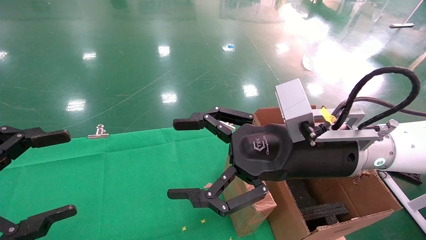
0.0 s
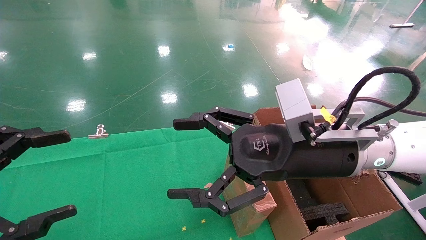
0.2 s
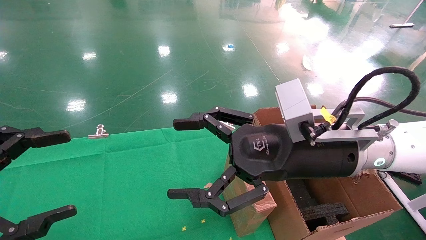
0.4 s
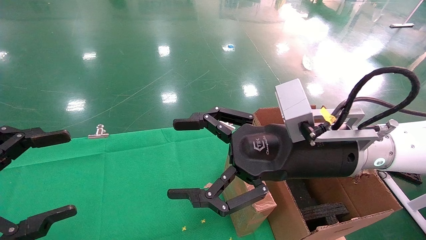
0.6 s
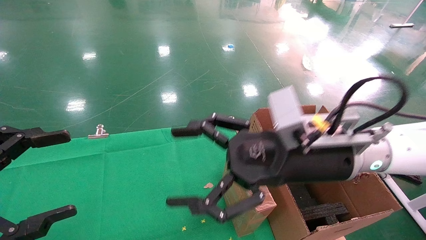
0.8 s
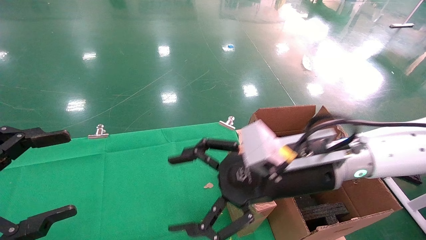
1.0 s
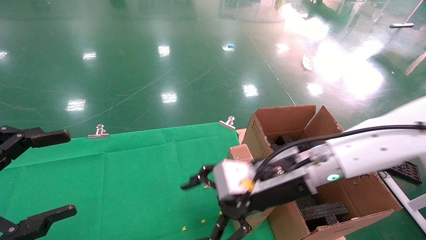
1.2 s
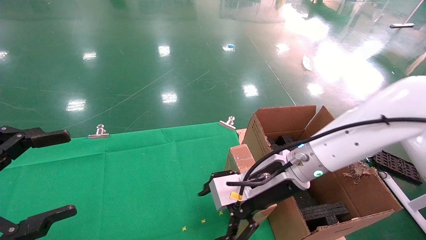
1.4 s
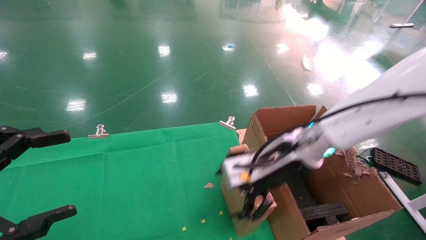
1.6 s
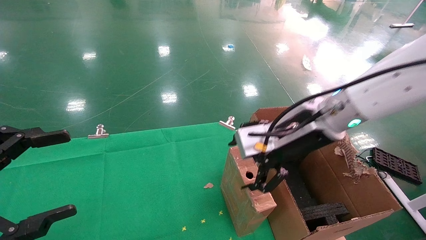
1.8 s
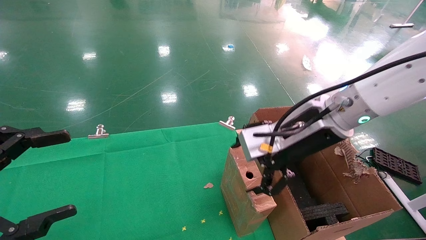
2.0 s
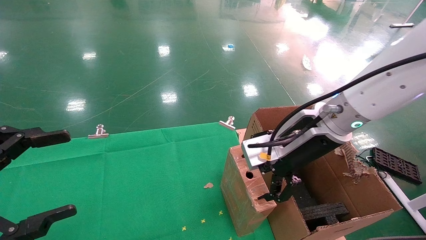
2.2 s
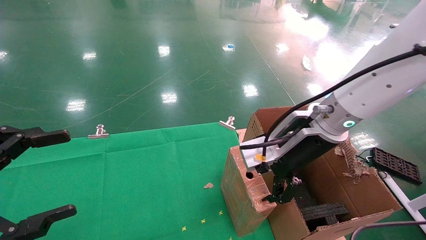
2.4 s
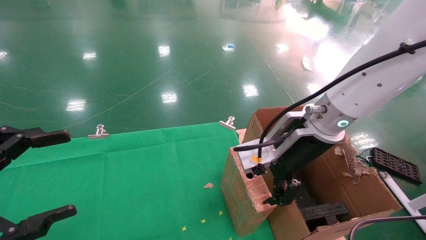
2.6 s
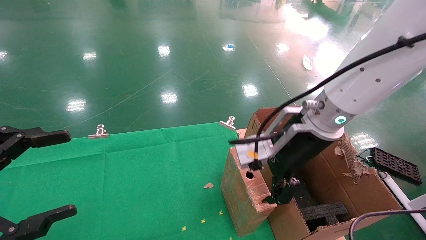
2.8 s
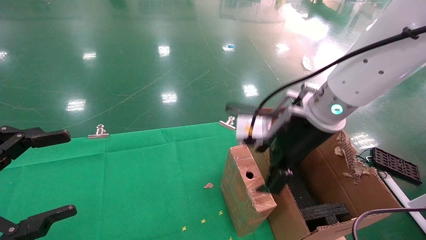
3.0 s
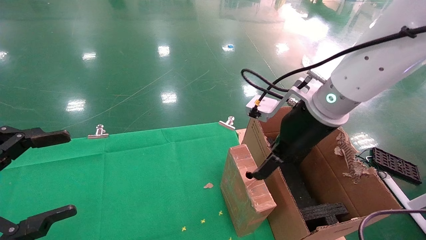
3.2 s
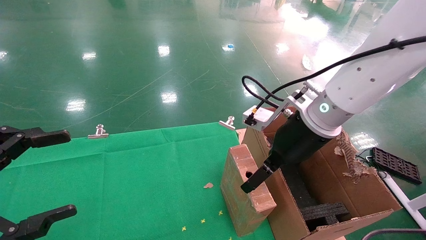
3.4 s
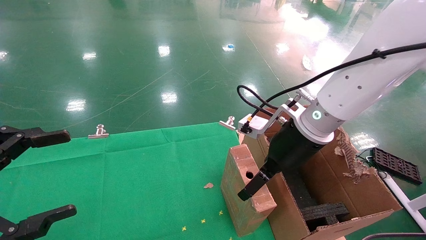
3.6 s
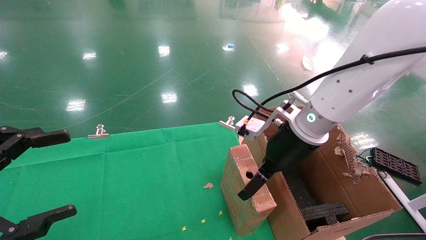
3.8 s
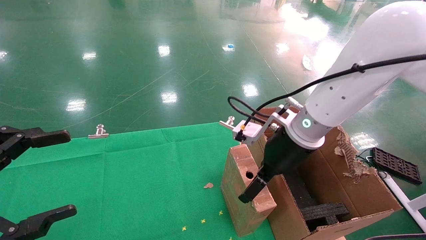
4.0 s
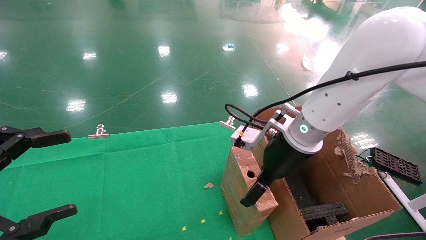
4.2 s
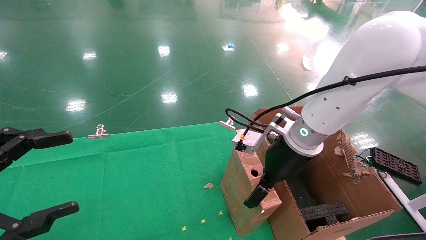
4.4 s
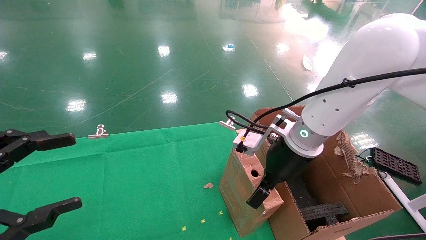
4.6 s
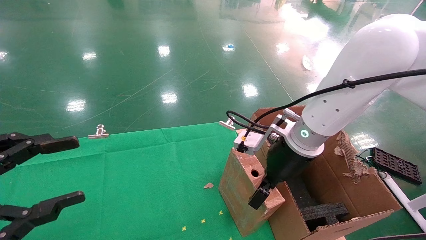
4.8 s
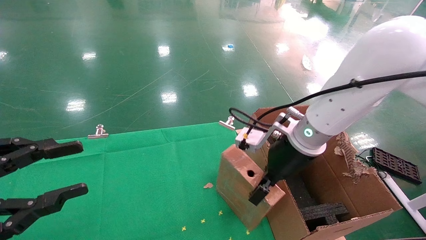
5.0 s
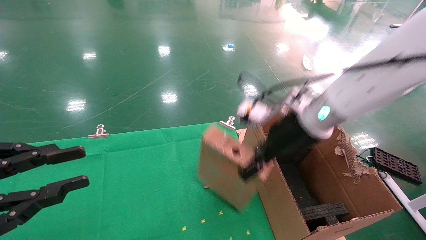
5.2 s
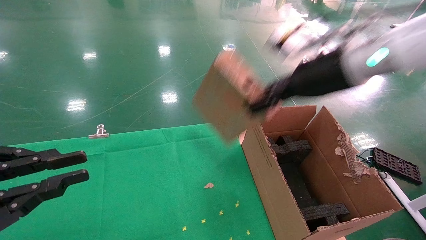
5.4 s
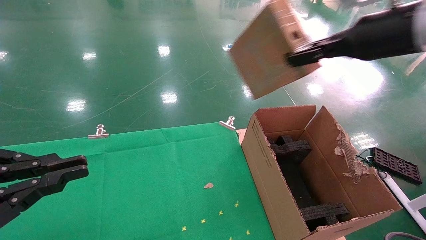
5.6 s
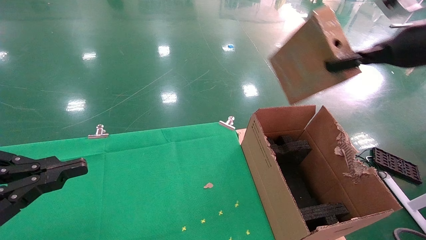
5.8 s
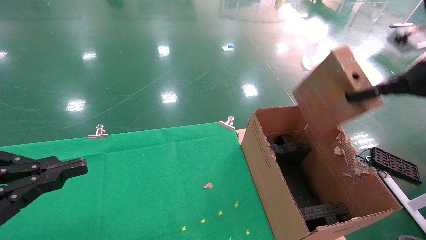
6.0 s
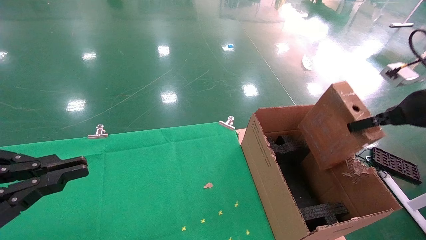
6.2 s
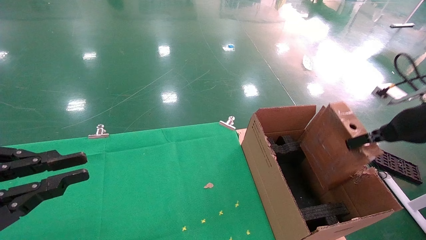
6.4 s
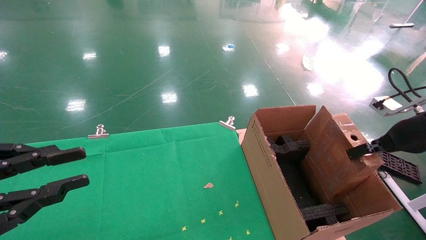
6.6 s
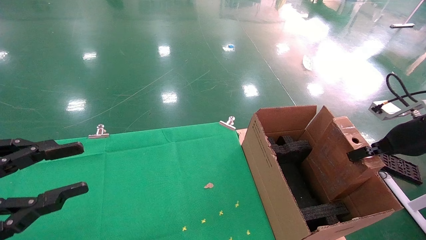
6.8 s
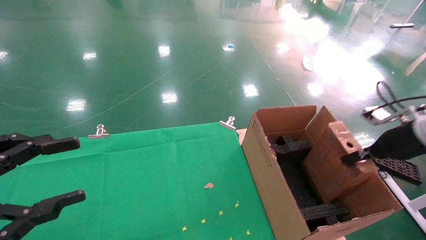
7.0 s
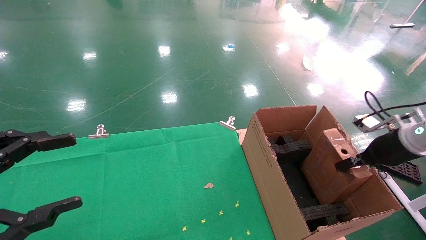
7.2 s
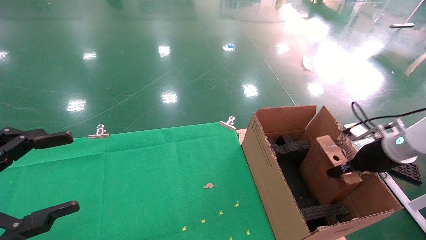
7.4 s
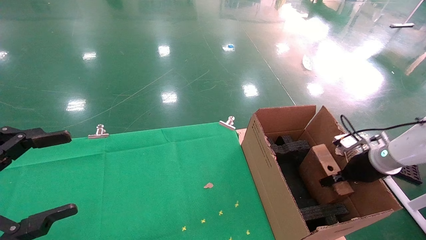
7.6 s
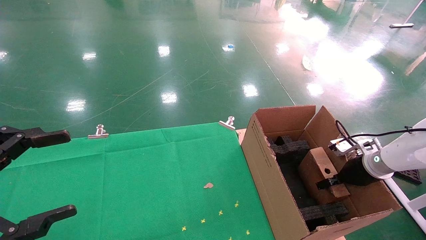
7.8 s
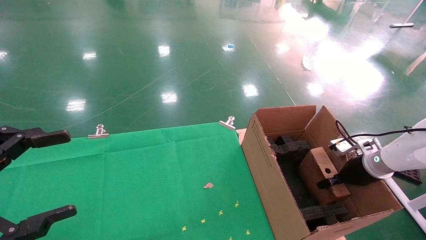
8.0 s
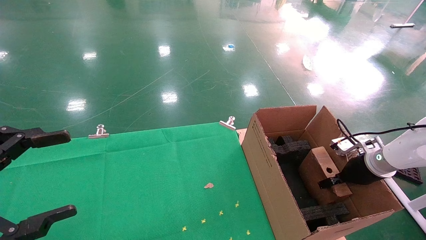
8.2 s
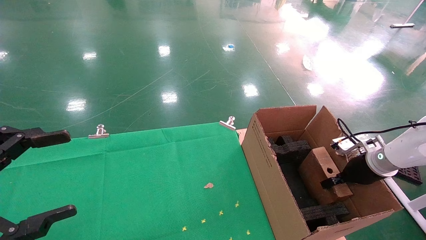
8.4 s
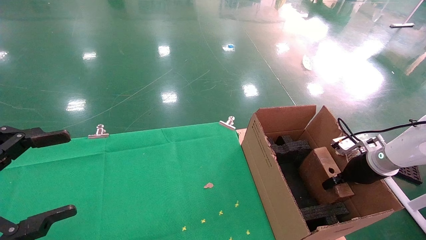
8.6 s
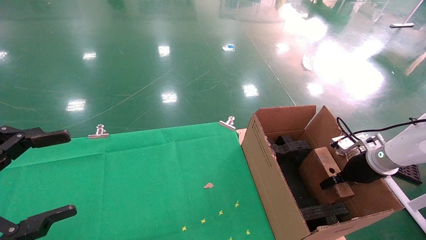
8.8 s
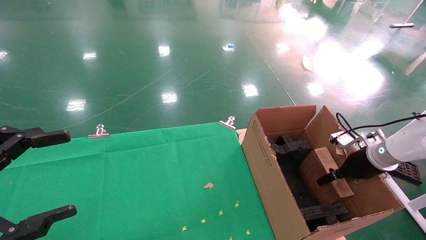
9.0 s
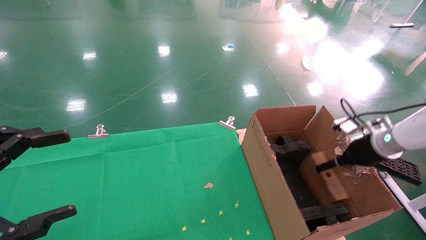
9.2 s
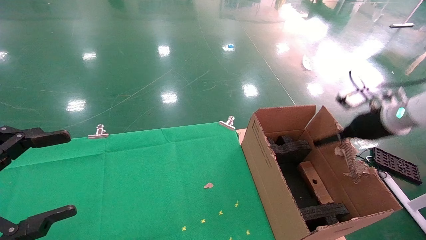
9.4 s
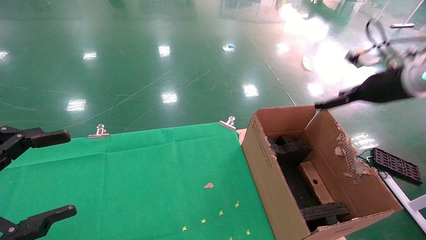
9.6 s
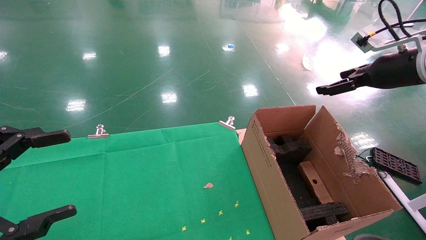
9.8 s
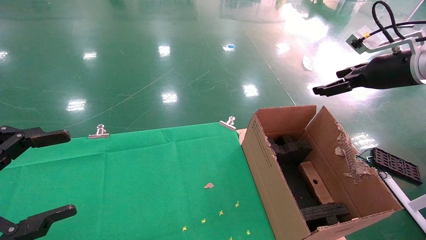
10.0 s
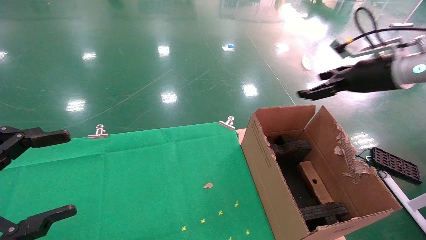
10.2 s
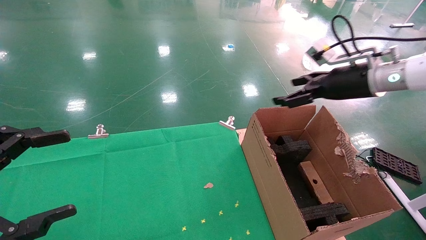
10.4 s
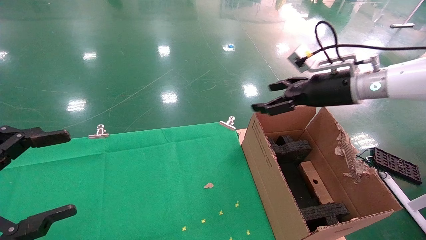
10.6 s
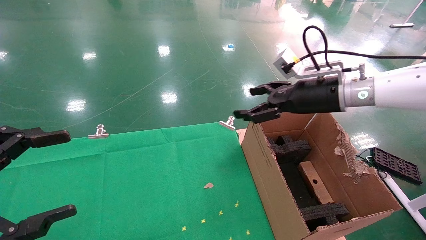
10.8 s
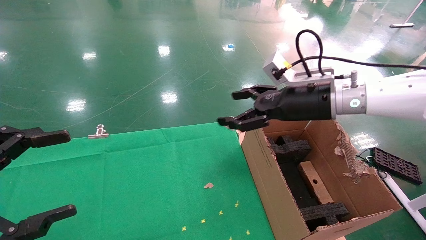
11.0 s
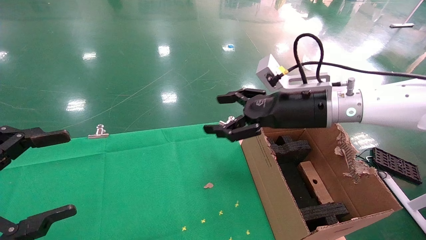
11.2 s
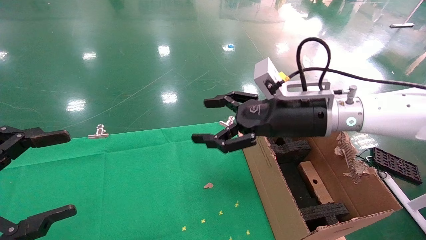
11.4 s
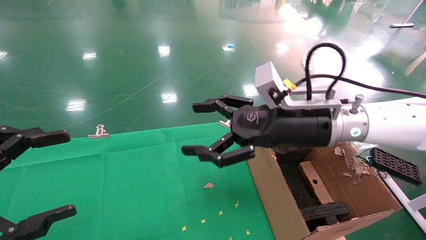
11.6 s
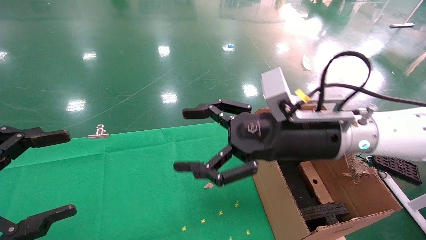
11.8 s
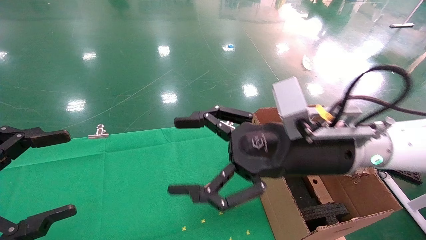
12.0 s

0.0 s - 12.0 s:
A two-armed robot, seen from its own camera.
Task of the whole recording: using a robotic arm to pick up a cardboard box and palace it the carton.
Step, 1.0 s - 5.4 s: Pick up the mouse and the power cord paper box.
Step, 5.6 s - 9.4 s: Place the mouse and the power cord paper box into the container.
0.0 s - 1.6 s: The right gripper shifts roughly 5 cm forward.
1.6 s - 3.0 s: The right gripper goes roughly 5 cm upward.
3.0 s - 4.4 s: The right gripper heads downward, covering roughly 5 cm.
4.4 s - 6.0 s: The right gripper goes approximately 25 cm to the right and upward, and closes up. Meanwhile the left gripper closes.
6.0 s - 7.6 s: The right gripper goes roughly 25 cm downward, while the left gripper opens up.
7.6 s - 9.0 s: The right gripper opens up.
9.0 s - 10.4 s: The right gripper goes roughly 20 cm upward and to the left, and opens up.
10.4 s - 12.0 s: The right gripper travels to the left and backward by roughly 20 cm.

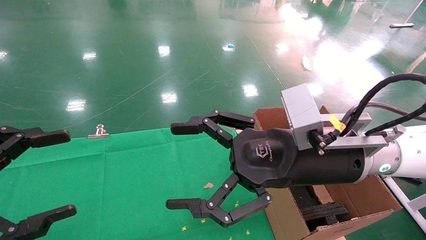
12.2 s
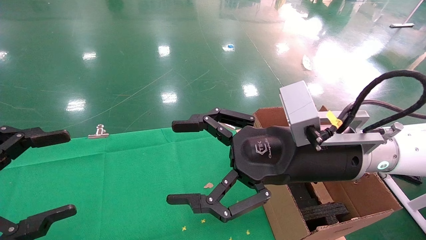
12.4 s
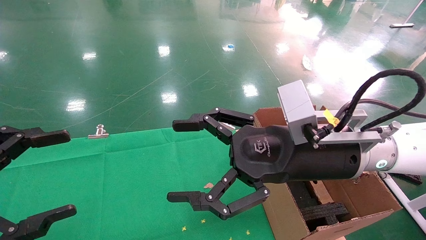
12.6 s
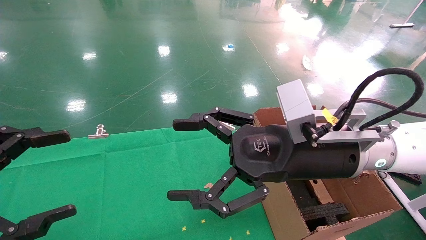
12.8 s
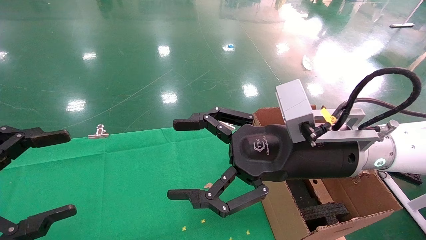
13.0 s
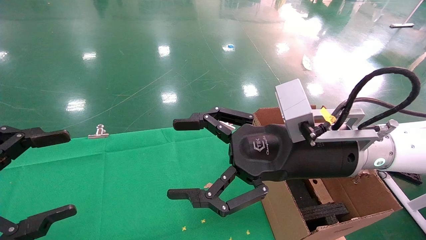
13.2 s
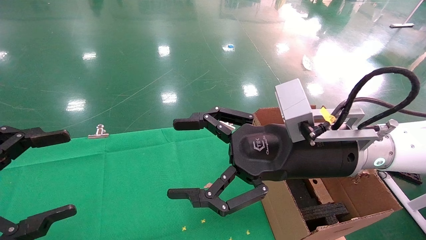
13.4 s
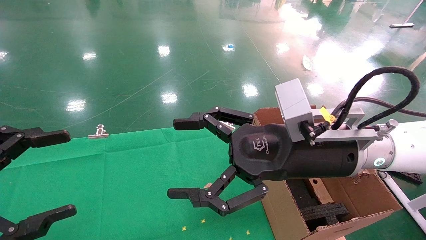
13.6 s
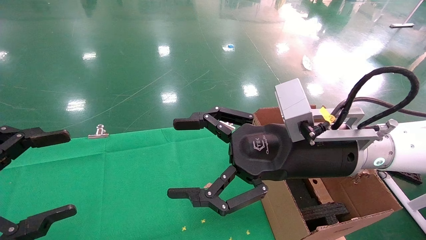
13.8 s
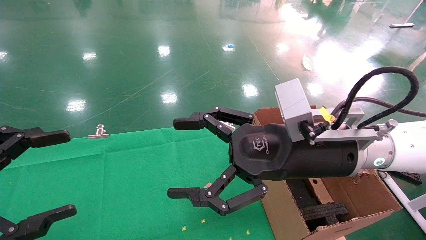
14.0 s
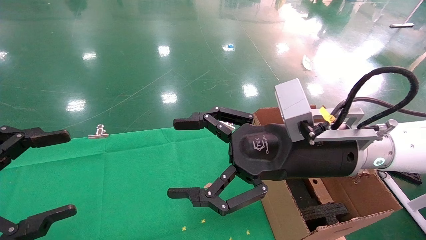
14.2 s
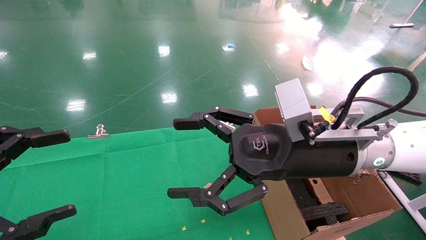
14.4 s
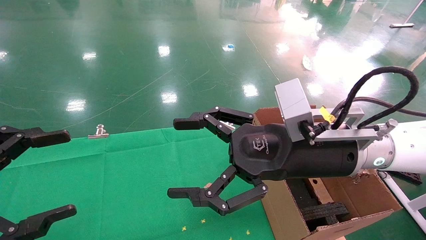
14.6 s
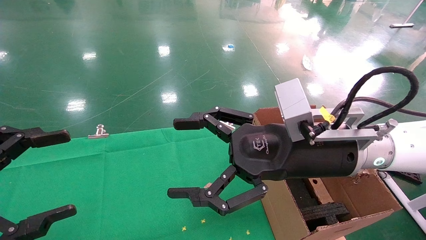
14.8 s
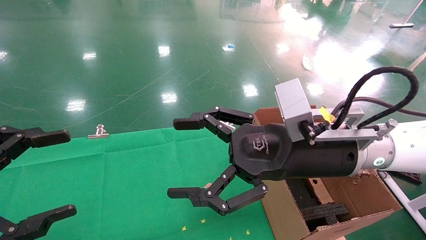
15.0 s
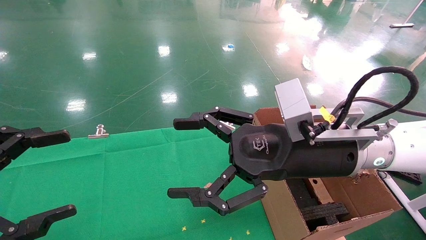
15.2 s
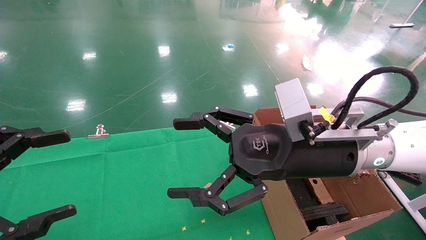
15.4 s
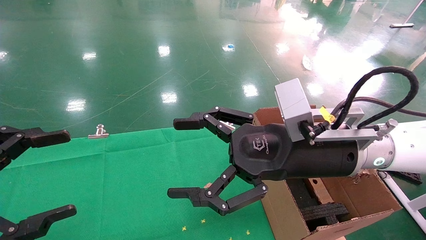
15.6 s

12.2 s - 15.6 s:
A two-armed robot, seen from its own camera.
Task of the whole recording: using a robotic arm to pick up a cardboard box and palace it the carton.
12.2 s - 15.6 s: The two grippers keep their place.

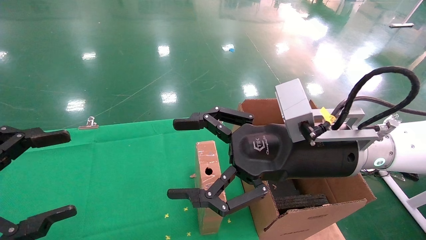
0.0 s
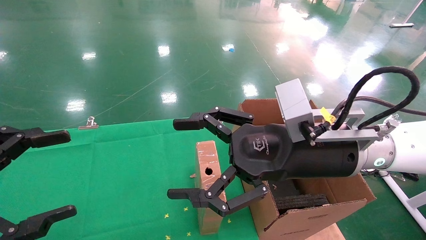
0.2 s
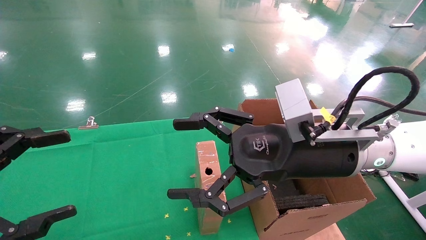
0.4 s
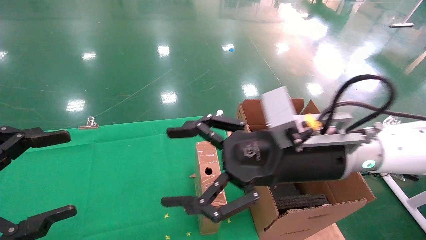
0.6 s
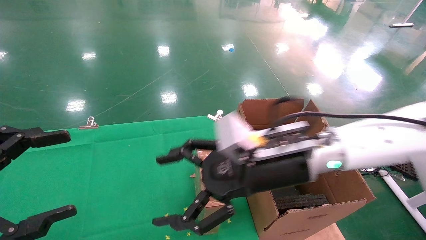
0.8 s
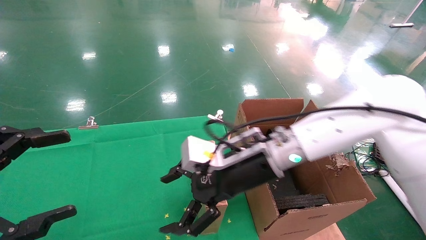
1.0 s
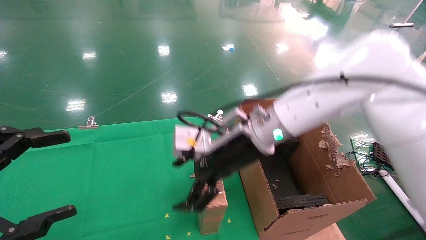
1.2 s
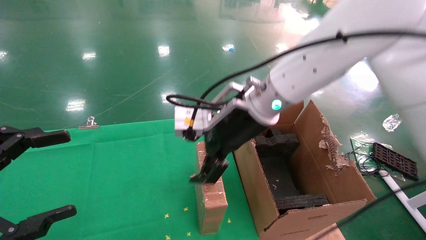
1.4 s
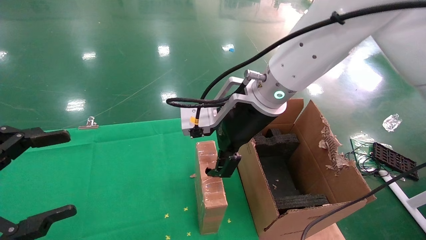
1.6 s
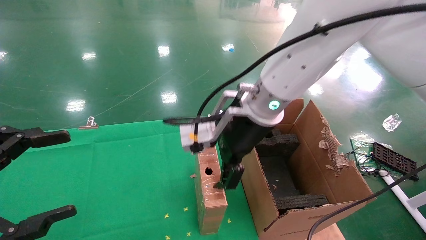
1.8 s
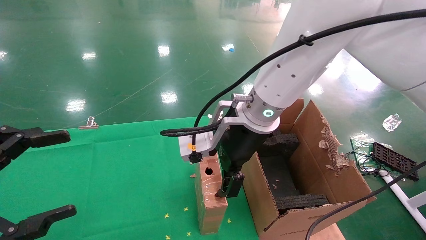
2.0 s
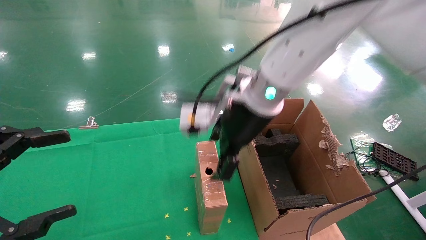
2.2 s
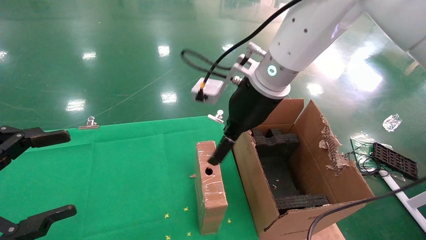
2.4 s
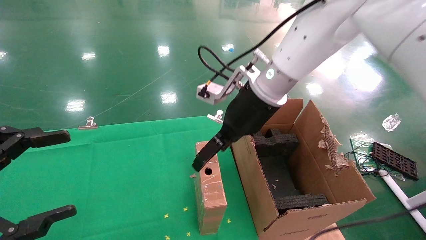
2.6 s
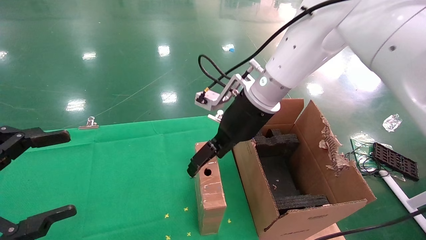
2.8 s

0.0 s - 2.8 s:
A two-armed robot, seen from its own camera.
Task of the whole recording: using a robotic arm to pick up a cardboard box and palace it the carton.
0.0 s - 1.4 s: The right gripper travels forward and to the left by about 15 cm.
